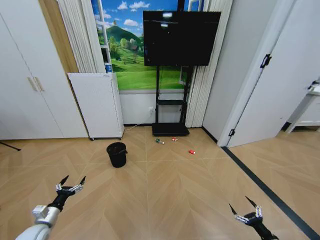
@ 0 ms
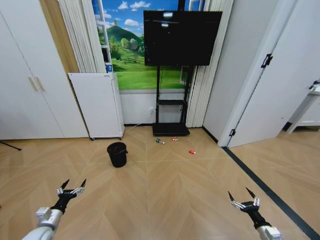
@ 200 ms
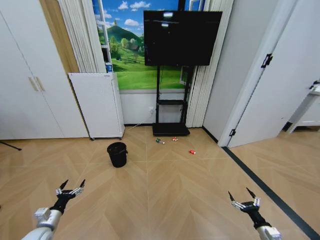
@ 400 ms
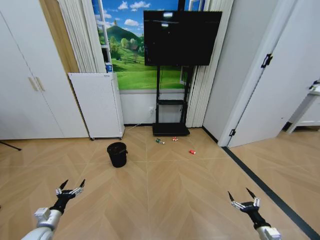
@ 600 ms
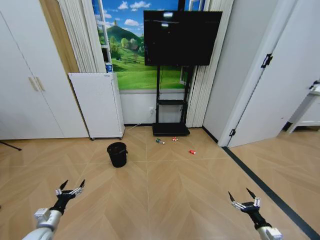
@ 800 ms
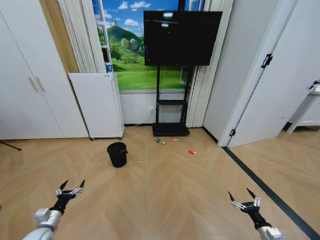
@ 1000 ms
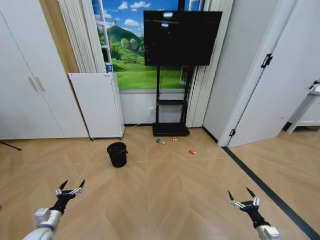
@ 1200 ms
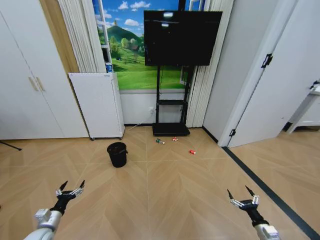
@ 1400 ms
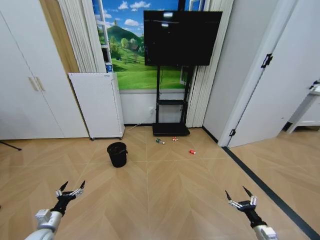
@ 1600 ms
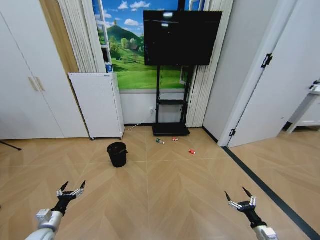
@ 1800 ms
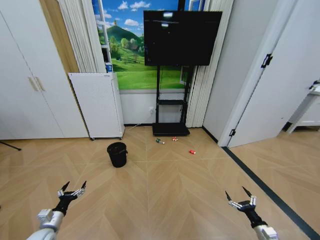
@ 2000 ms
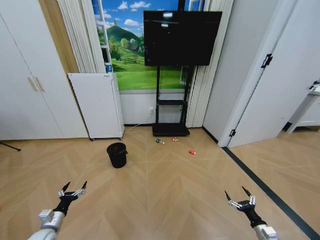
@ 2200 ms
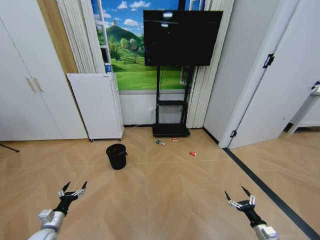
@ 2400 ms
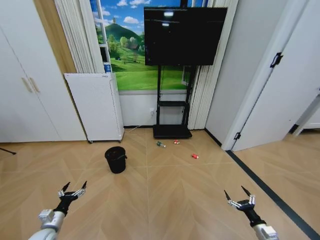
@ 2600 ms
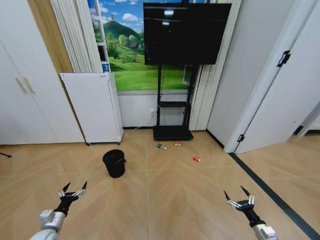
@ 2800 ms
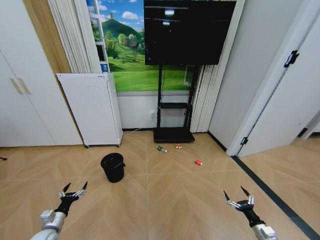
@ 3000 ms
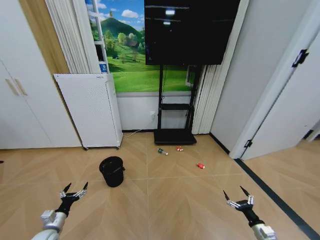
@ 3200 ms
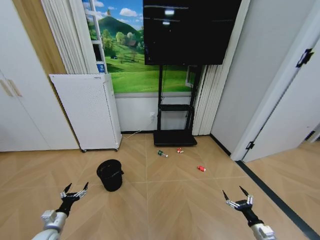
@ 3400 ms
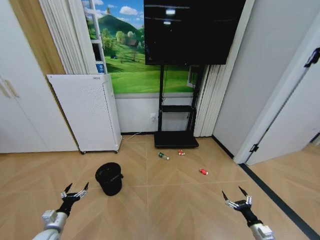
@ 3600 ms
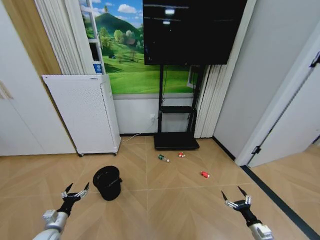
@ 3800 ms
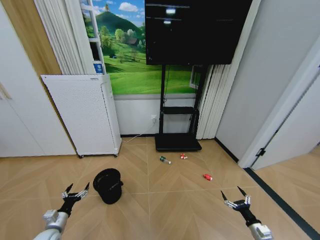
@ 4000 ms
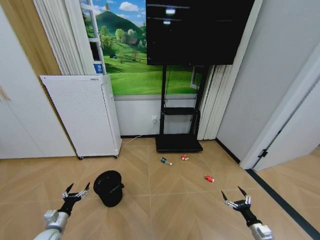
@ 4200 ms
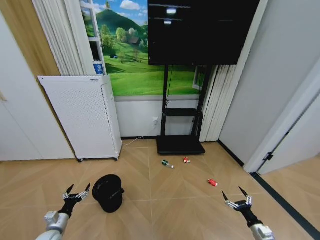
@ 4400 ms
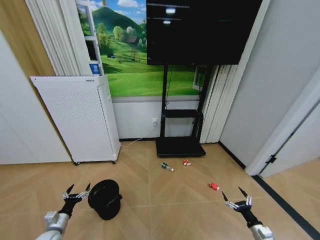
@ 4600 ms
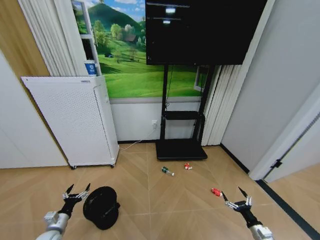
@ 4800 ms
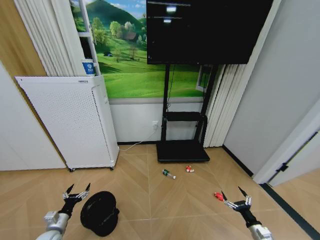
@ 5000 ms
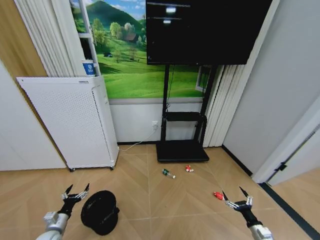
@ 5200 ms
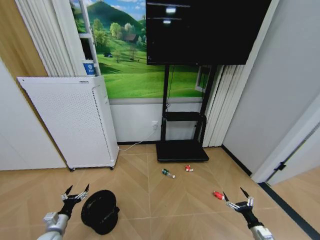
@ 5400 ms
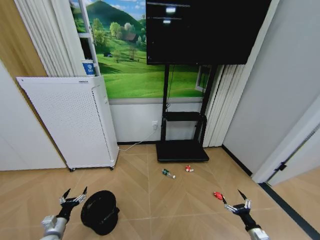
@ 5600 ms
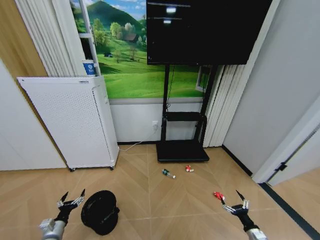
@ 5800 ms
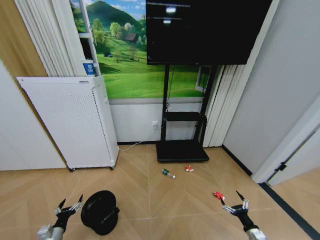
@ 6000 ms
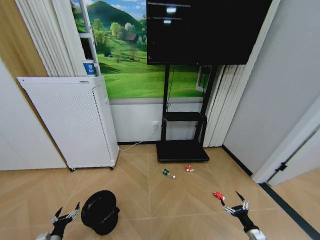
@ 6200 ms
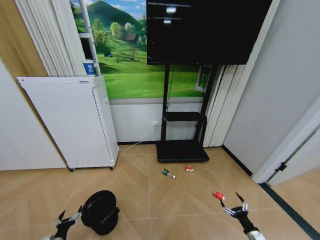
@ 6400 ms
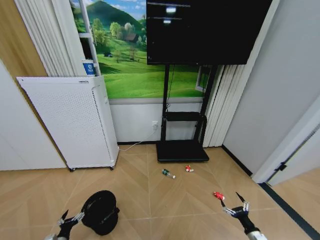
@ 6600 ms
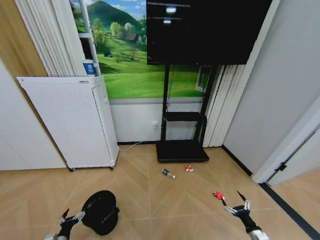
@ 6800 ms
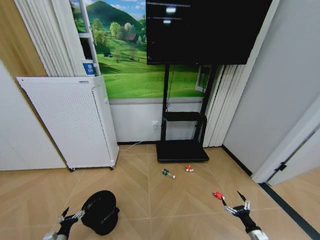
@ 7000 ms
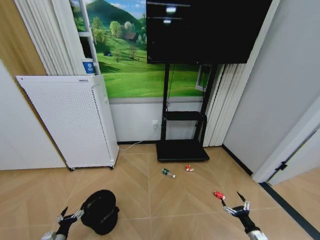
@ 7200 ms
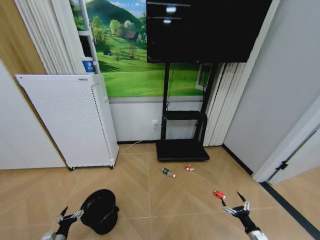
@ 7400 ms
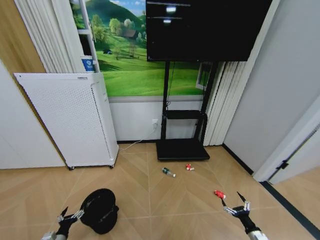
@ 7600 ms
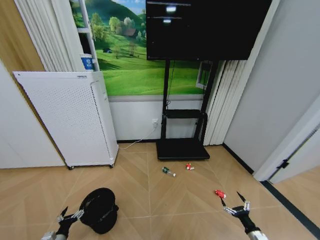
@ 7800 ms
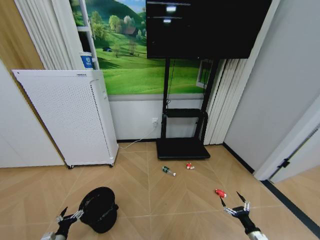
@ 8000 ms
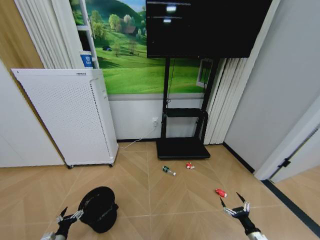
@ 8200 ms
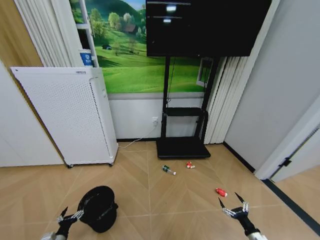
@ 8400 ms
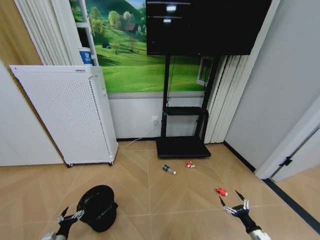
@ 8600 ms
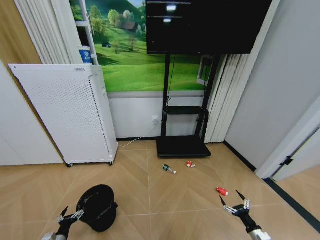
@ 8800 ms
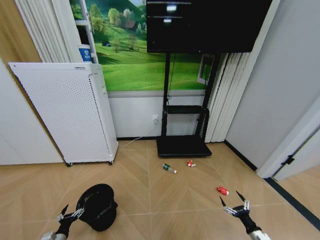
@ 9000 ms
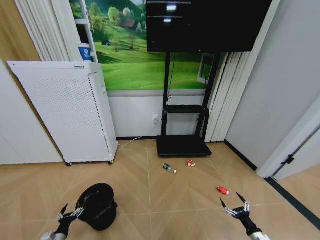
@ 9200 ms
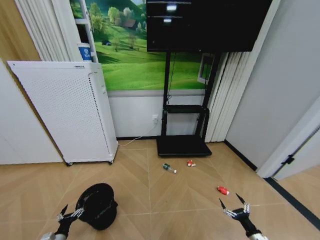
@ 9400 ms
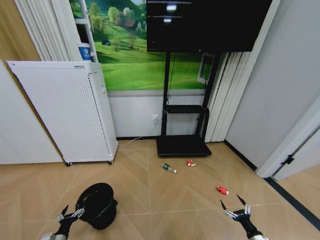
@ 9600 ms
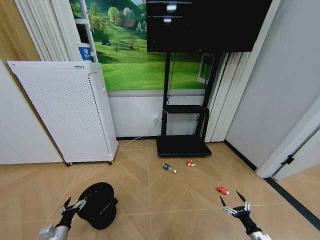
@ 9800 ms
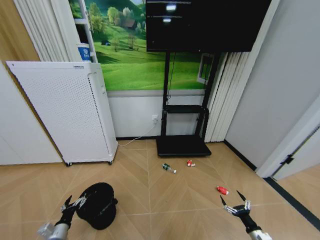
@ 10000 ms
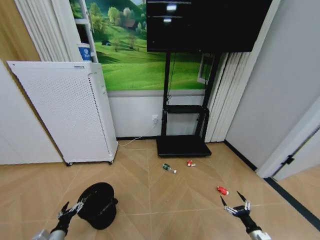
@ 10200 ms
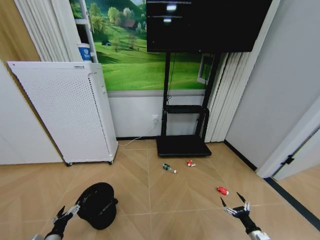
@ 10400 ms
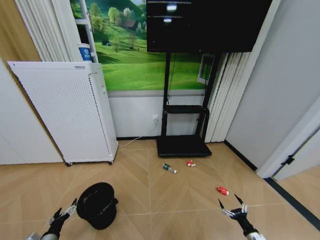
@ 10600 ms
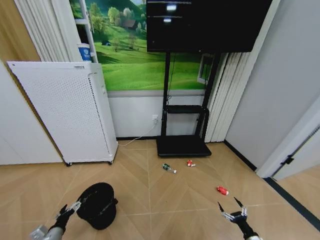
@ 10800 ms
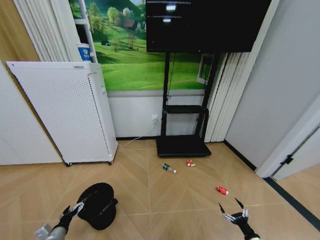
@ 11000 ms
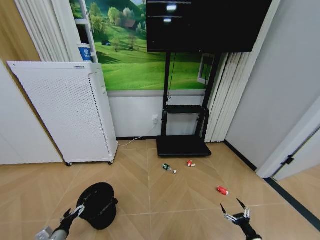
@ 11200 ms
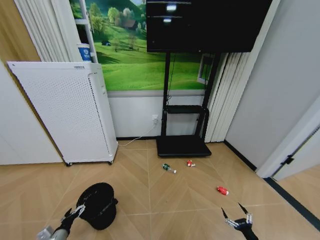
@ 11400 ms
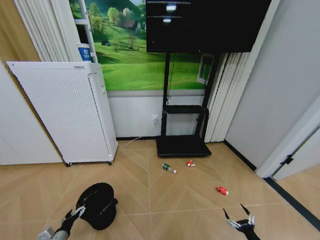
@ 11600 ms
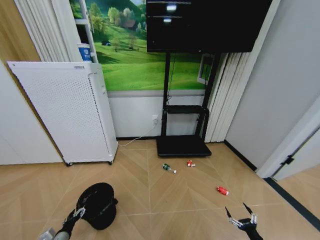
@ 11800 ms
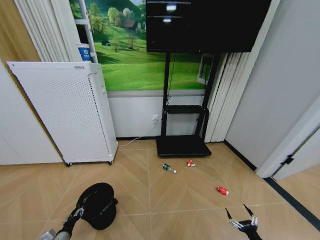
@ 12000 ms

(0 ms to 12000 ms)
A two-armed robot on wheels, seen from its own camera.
Task of the whole recording: Pick up the trash bin and place the garbage on the floor into it.
4400 ms - 6000 ms: The left gripper shifts by some 5 cm.
6000 ms - 9000 ms: The grippers make only small movements.
9000 ms - 10400 ms: The left gripper is displaced upward by approximately 10 cm.
10400 ms - 12000 ms: The right gripper goes some 5 cm backward; the left gripper closes up.

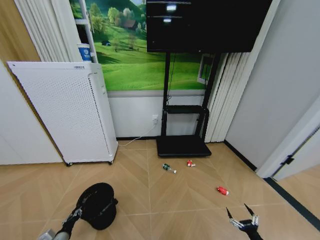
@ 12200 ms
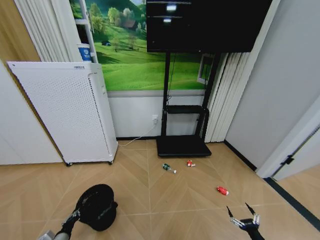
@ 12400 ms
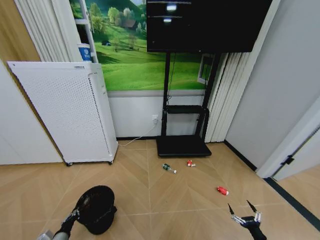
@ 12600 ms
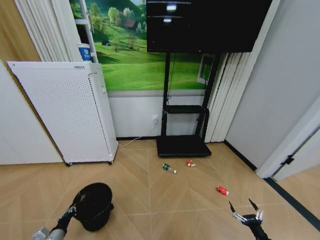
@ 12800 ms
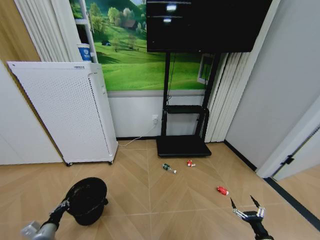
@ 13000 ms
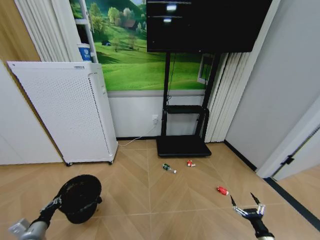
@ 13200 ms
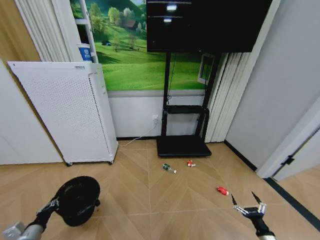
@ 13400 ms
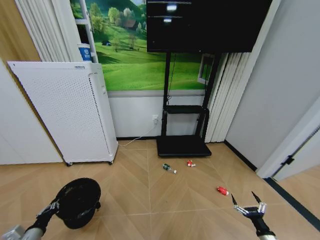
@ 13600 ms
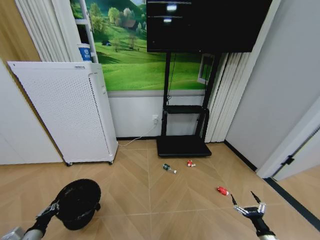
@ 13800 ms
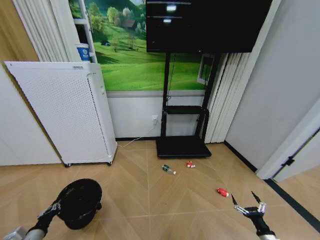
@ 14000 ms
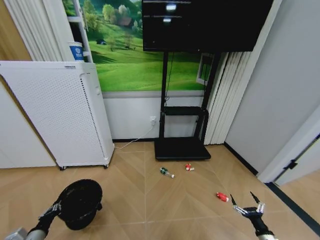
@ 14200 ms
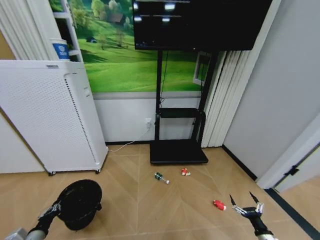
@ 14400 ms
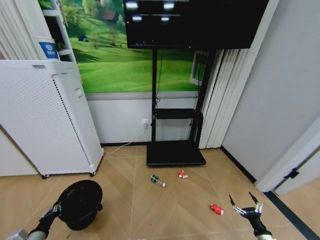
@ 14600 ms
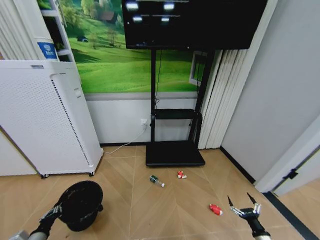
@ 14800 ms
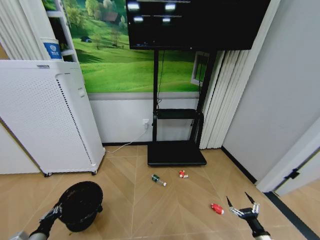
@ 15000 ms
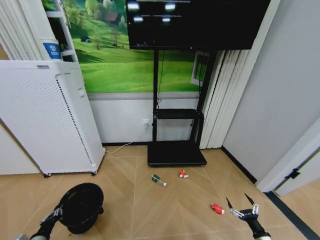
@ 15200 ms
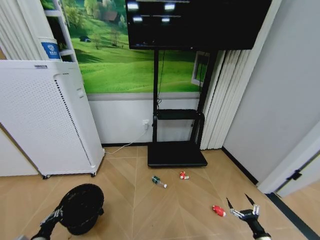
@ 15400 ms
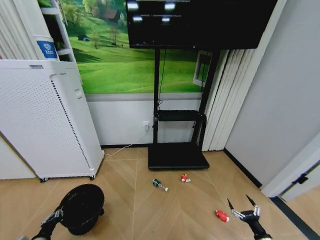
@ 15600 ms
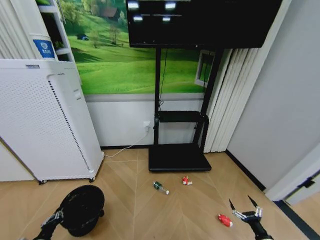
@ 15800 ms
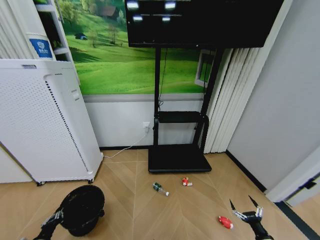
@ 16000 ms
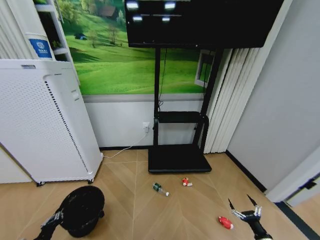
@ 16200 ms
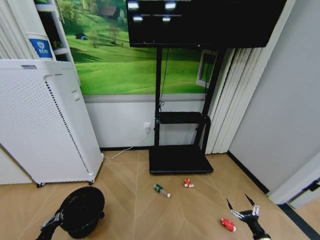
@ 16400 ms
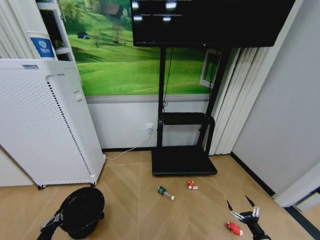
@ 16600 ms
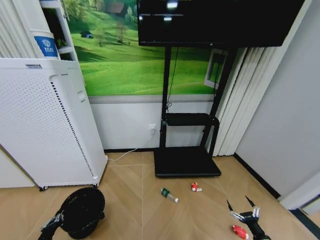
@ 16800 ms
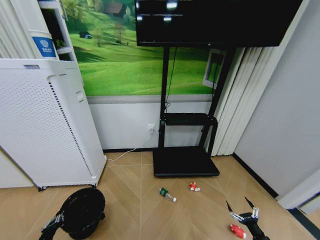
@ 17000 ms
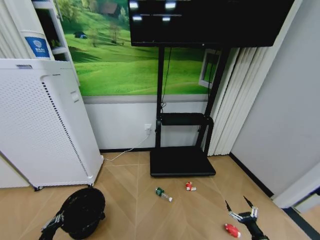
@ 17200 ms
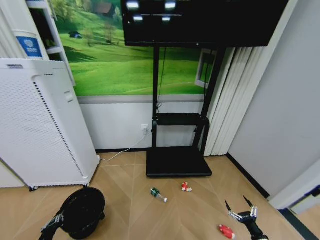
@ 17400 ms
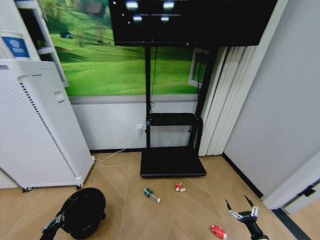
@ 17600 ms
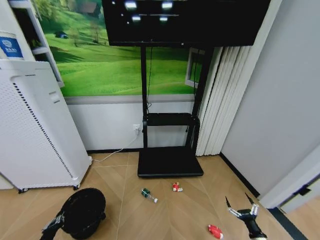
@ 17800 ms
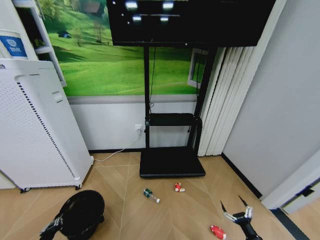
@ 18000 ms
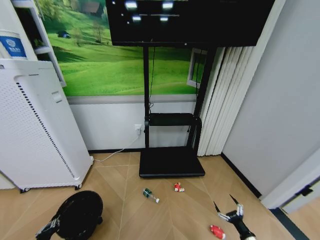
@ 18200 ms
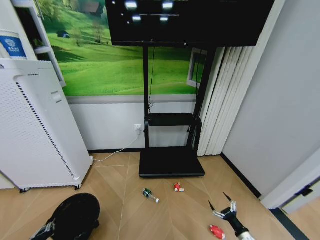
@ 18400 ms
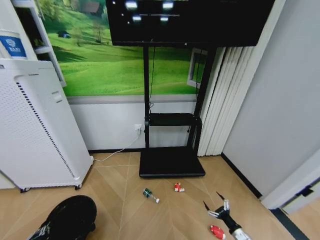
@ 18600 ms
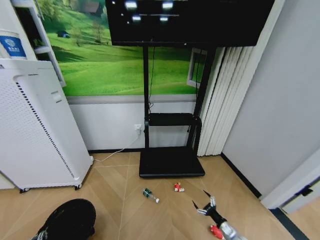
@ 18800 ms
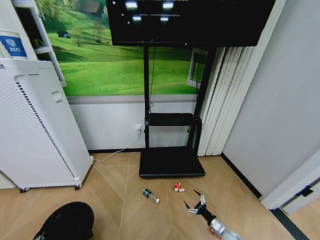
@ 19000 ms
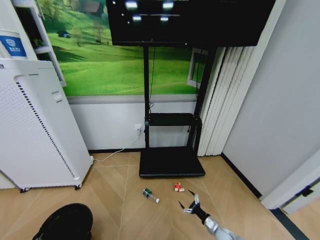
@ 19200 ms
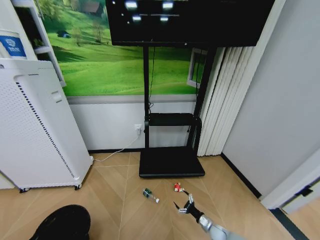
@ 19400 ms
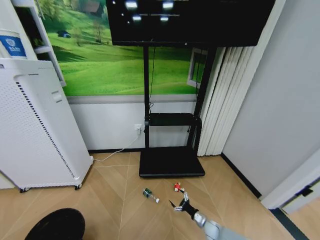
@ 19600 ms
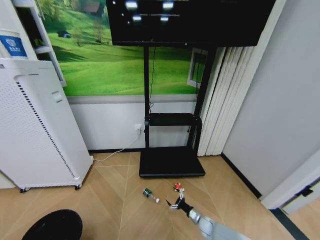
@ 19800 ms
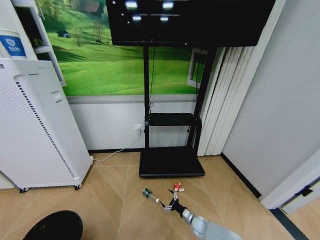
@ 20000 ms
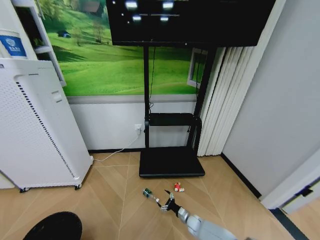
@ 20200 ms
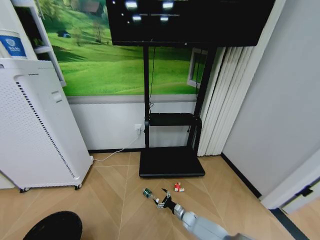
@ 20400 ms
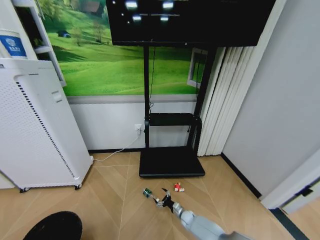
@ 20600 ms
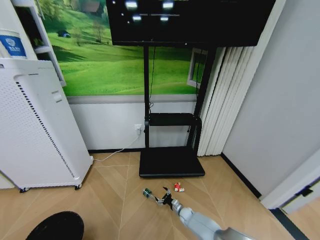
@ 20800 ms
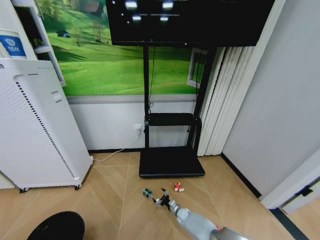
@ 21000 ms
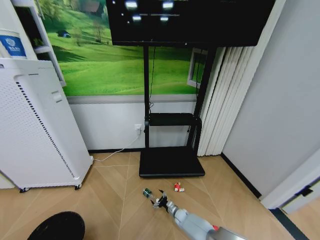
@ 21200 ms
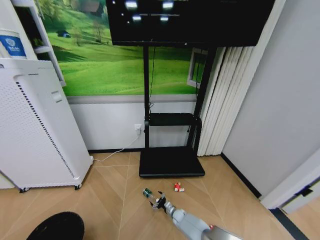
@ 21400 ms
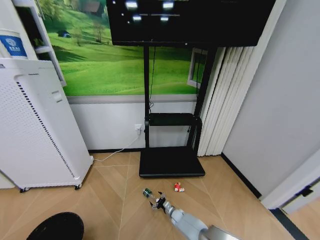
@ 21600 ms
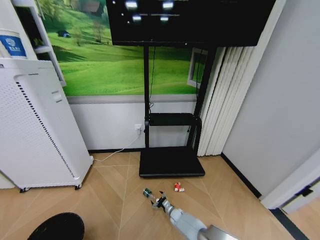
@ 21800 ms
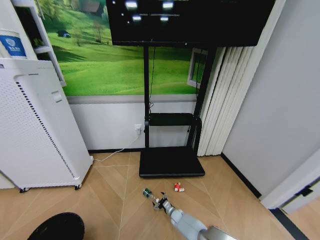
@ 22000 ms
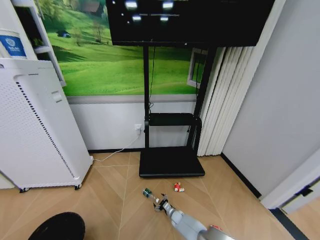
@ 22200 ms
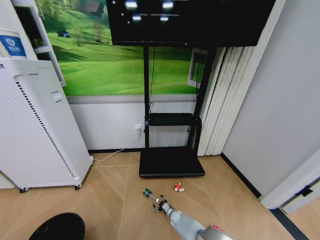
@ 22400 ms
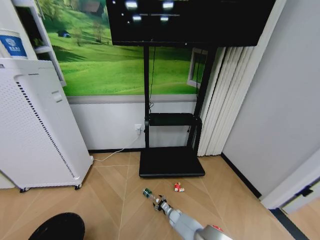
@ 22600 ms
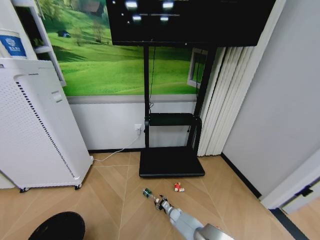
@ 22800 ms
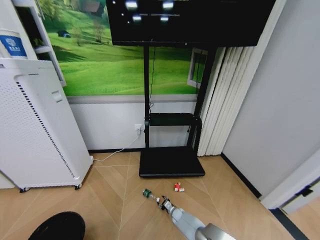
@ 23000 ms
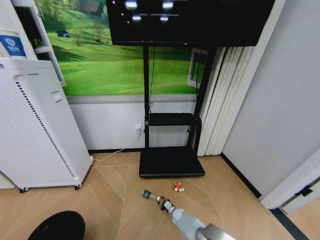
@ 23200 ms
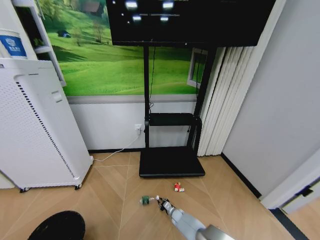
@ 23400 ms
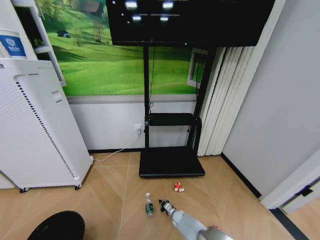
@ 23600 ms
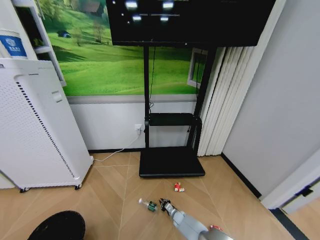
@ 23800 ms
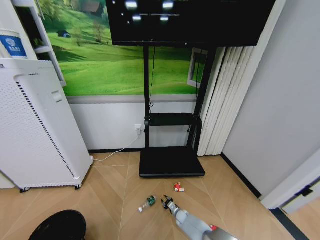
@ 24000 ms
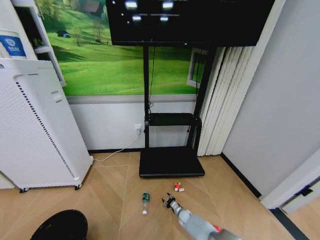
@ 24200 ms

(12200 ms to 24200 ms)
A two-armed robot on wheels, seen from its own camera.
Task of the whole recording: Pick up the trash bin and place the garbage on the floor into it.
12200 ms - 13800 ms: The left gripper shifts some 10 cm upward and to the left. The right gripper shifts by roughly 5 cm.
18200 ms - 19800 ms: The left gripper is displaced backward by roughly 10 cm. The right gripper is displaced forward, to the left and downward by about 25 cm.
19800 ms - 21200 ms: The right gripper shifts roughly 15 cm to the left and forward.
21200 ms - 22600 ms: The grippers move only a little.
22600 ms - 24200 ms: The right gripper moves to the right, about 5 cm, and closes, then reopens.
